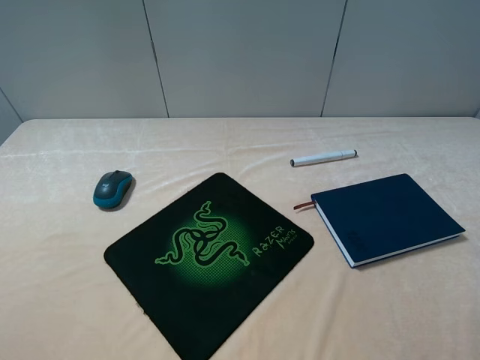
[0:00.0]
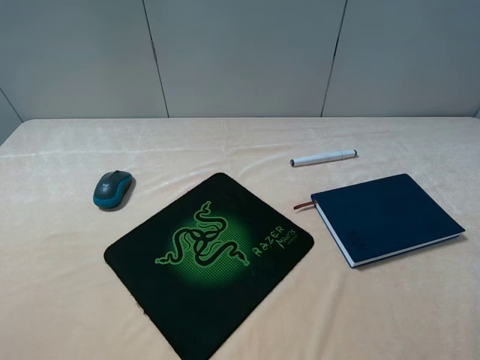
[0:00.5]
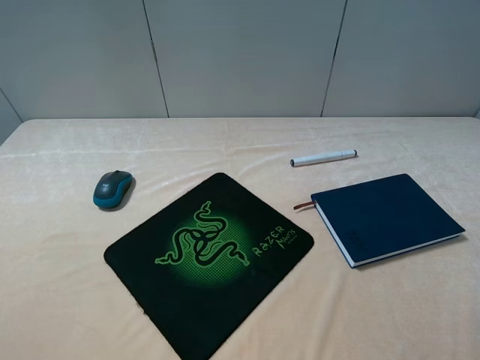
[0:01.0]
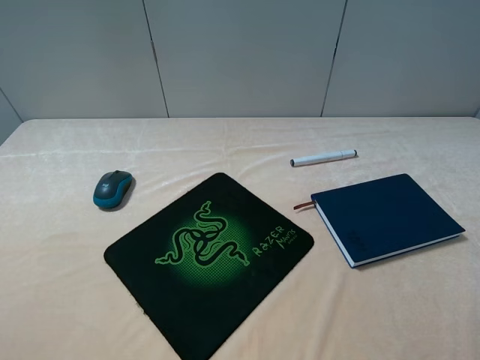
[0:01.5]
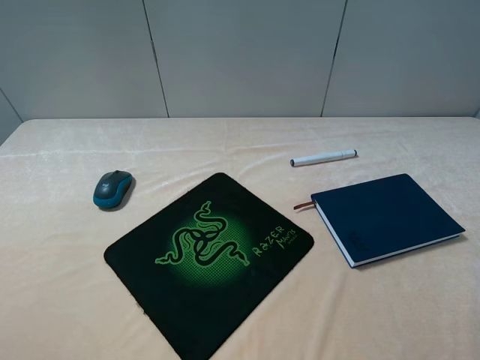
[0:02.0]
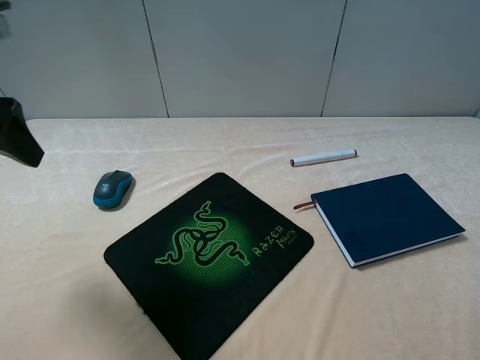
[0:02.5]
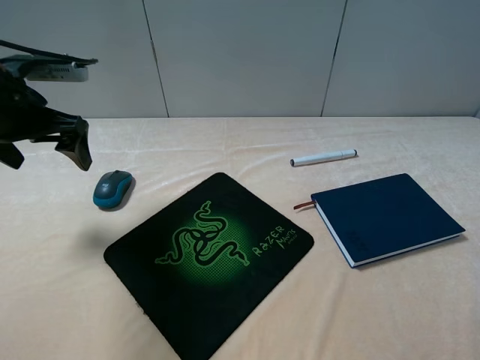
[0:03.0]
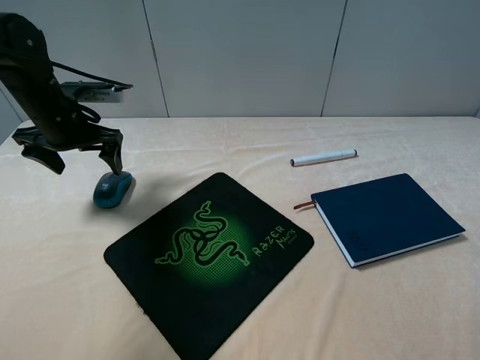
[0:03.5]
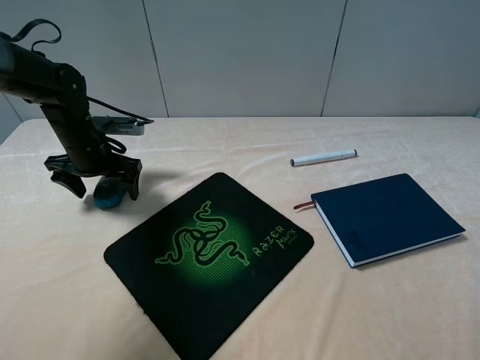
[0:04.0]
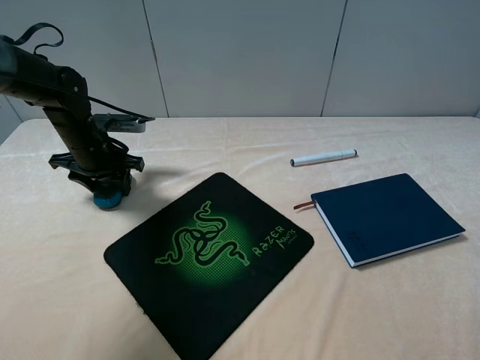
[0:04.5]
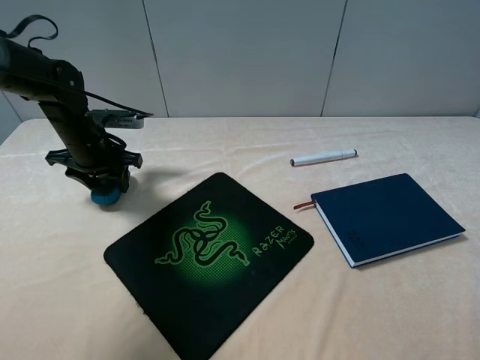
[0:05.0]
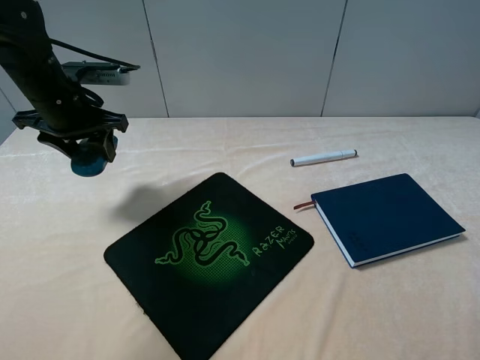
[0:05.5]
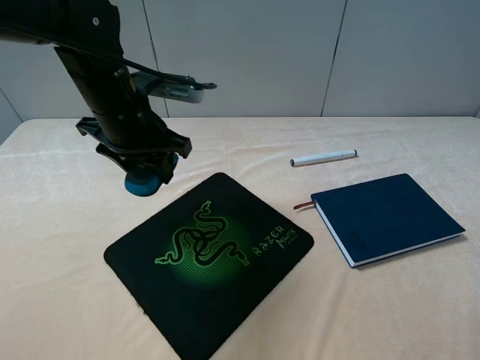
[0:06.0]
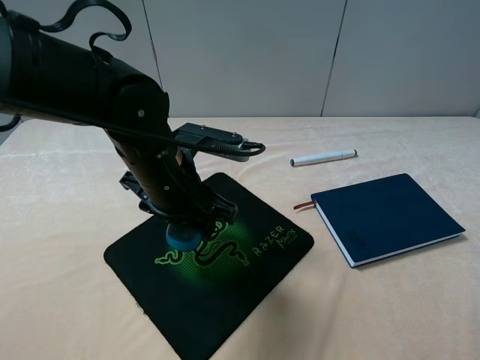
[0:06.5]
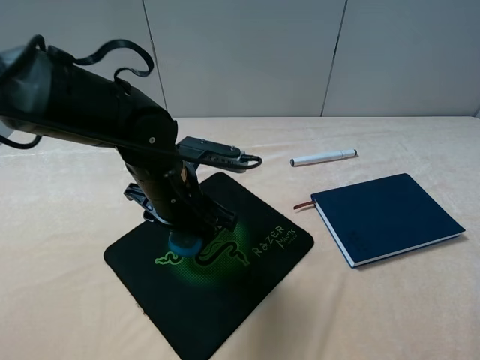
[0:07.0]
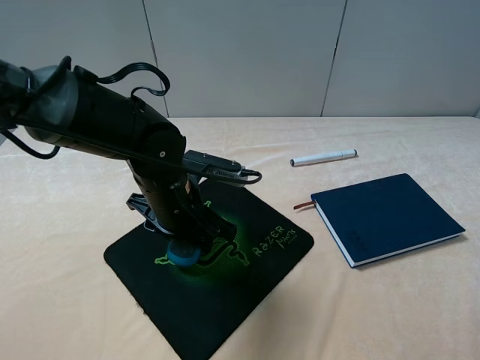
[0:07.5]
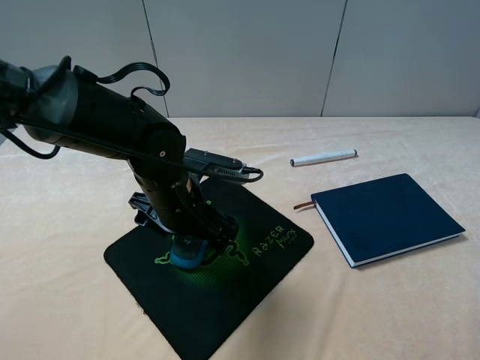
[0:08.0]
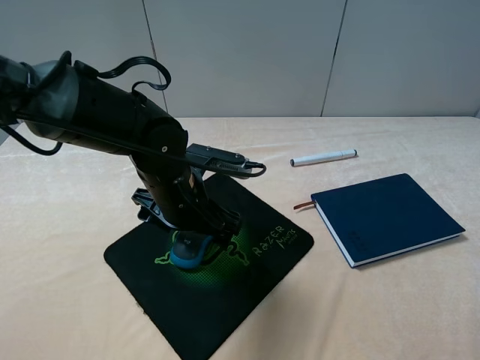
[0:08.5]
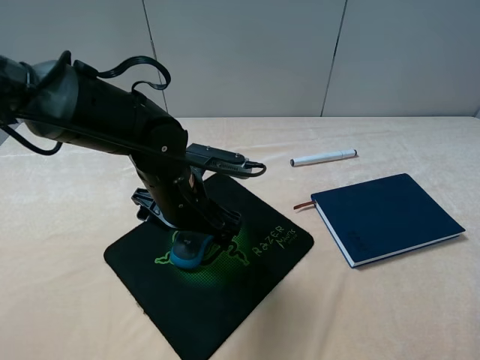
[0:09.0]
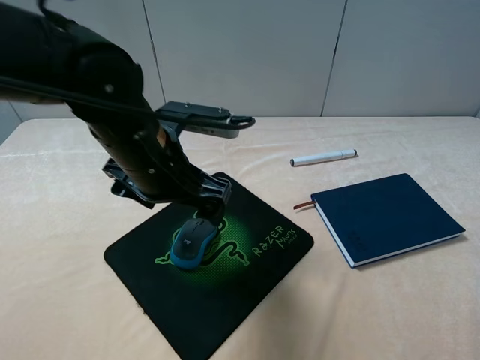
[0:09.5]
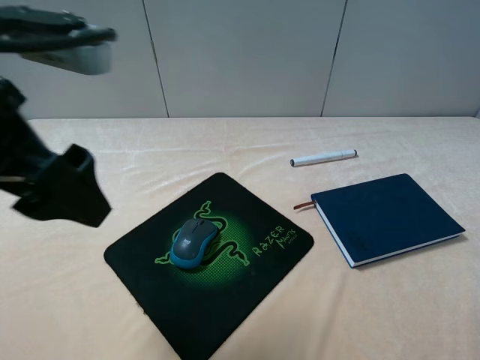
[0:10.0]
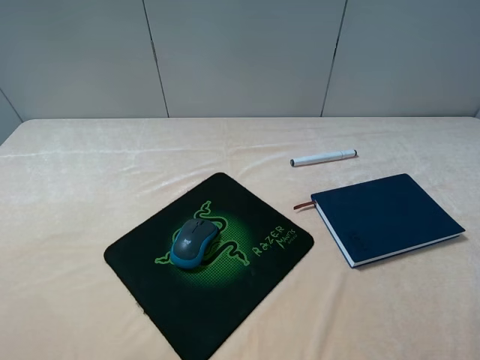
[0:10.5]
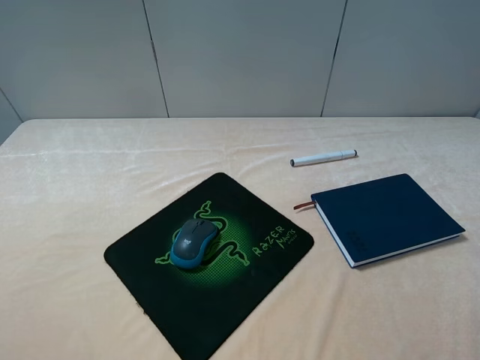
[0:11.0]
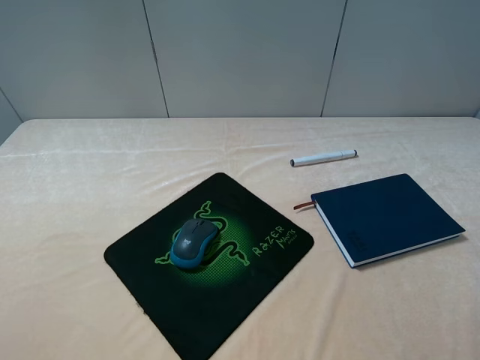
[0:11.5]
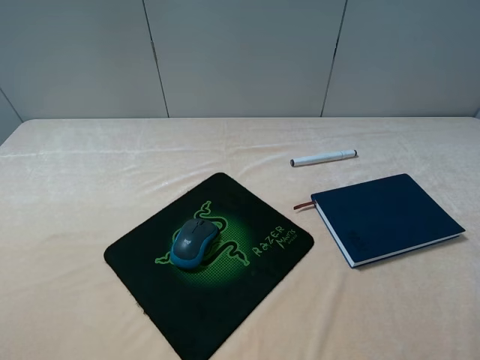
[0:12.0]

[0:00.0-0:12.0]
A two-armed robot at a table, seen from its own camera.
Step, 0:00.0 to 0:04.5: Grasp the mouse with the left gripper.
Step, 0:05.0 to 0:08.0: Place the mouse on the mouse pad with the left gripper.
0:02.0 to 0:04.0: The left gripper travels forward and downward by roughly 40 cm.
0:04.0 to 0:06.0: The left gripper shifts some 20 cm to the right, upward and backward, and closes.
0:06.0 to 0:08.0: The left gripper moves downward, backward and to the right, some 10 cm, and opens its fingers.
0:08.0 to 0:10.0: The left gripper goes approximately 25 cm upward, to the left and backward.
0:10.0 to 0:12.0: The left gripper shifts roughly 20 cm backward, to the left and downward.

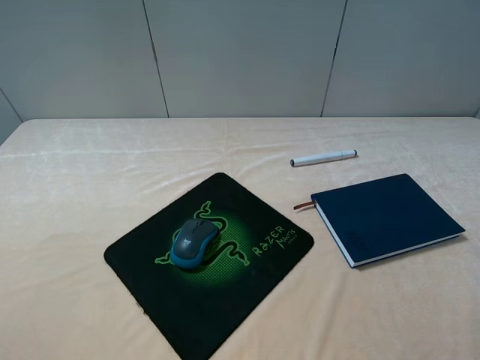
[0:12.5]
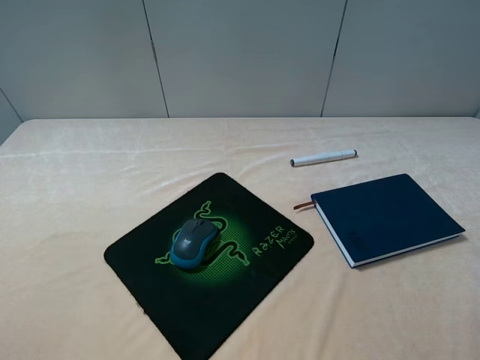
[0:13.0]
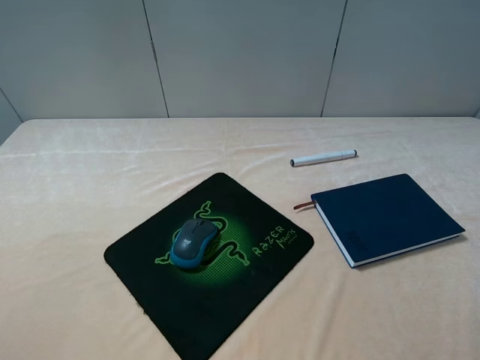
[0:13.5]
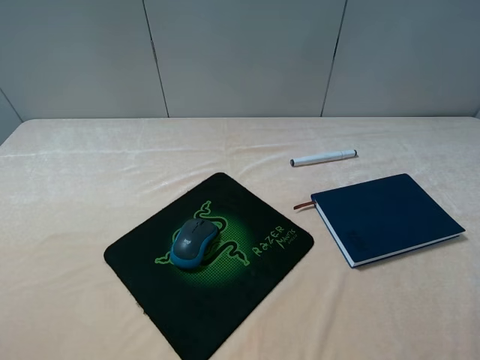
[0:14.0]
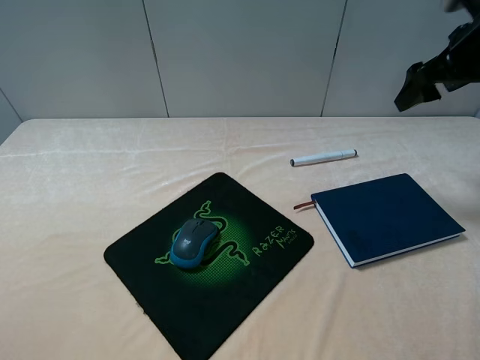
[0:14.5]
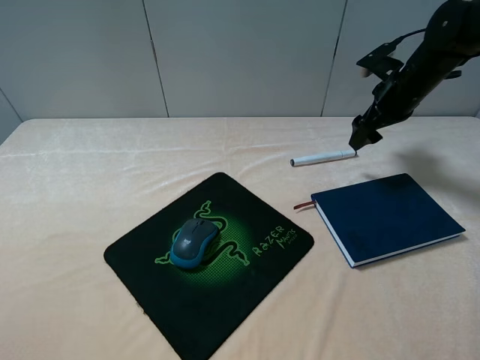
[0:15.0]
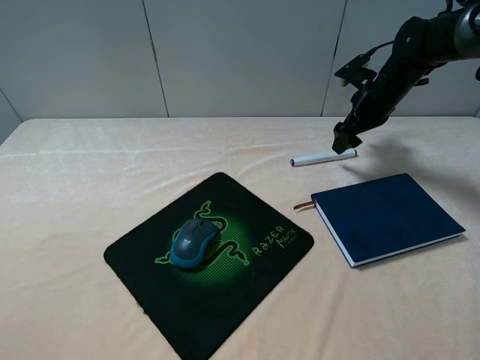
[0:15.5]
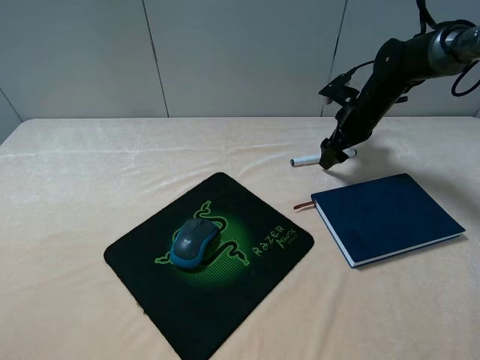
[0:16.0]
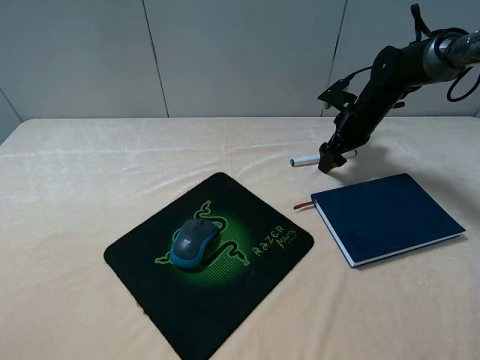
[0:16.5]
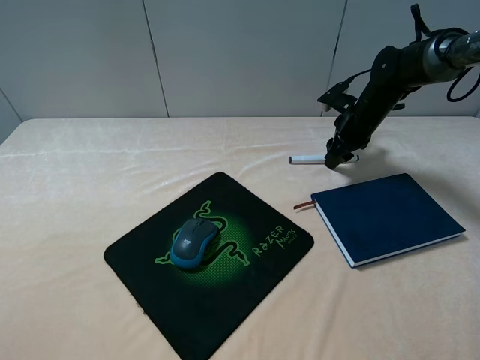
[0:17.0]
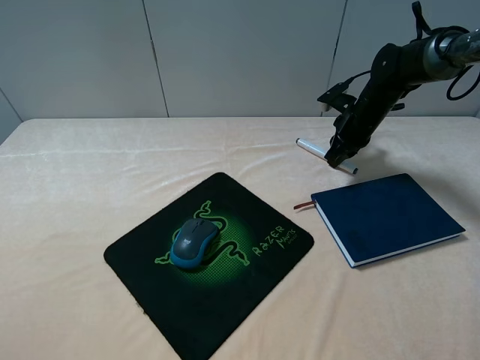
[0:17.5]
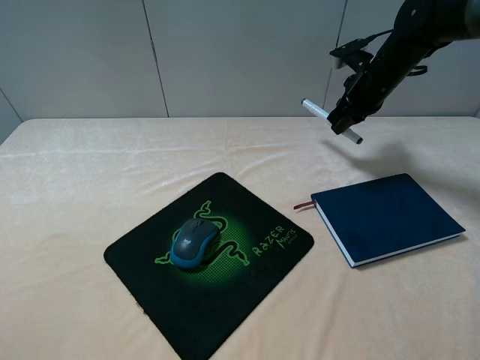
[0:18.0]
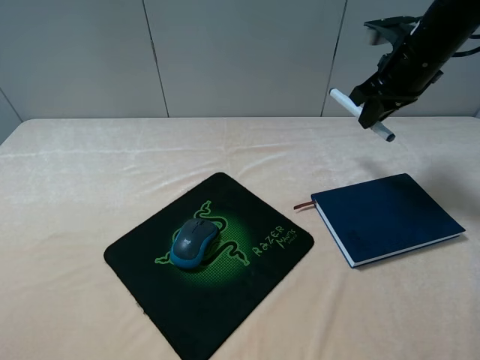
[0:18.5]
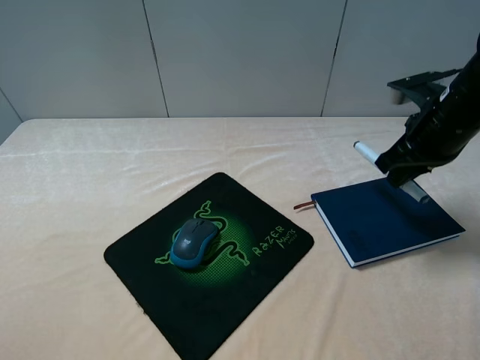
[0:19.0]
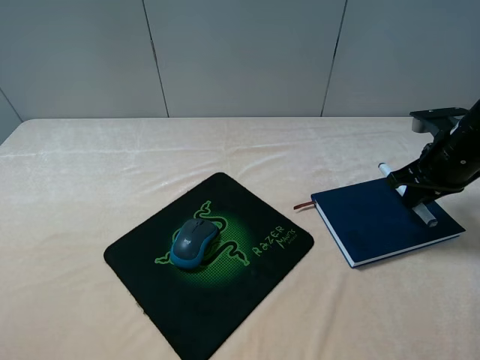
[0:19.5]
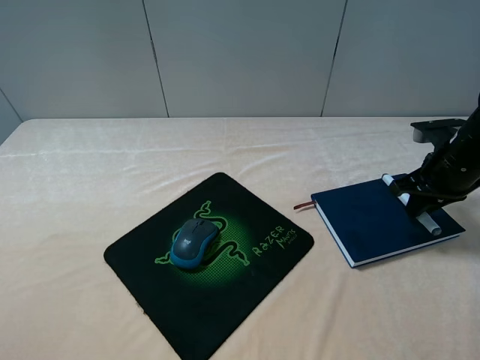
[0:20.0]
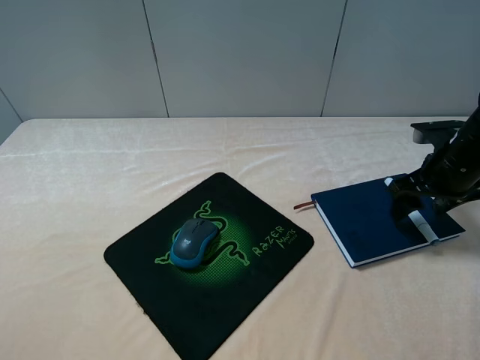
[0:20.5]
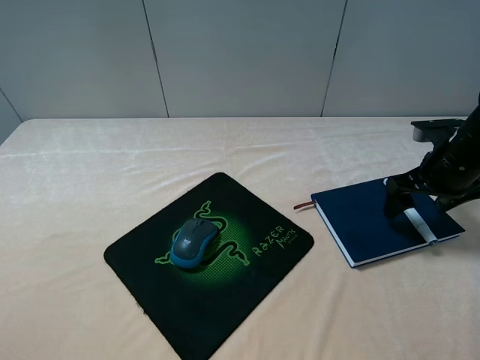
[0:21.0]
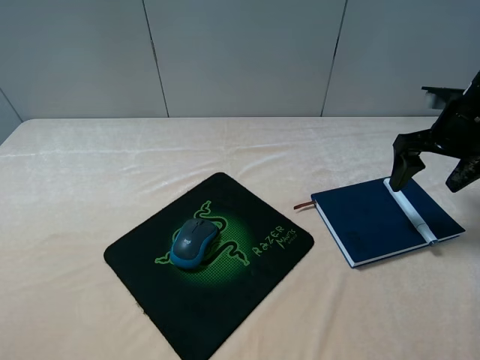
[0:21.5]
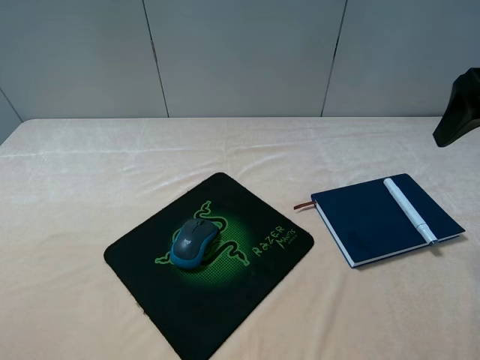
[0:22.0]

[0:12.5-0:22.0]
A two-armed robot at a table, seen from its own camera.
Step, 0:12.5 to 0:17.0: Grasp the marker with the right gripper.
Step, 0:17.5 to 0:20.5: Place the marker on the notebook with the right gripper.
0:12.5 to 0:14.5: The right gripper heads forward, covering approximately 35 cm.
0:14.5 to 0:16.5: The right gripper heads downward, forward and to the left, covering some 20 cm.
0:16.5 to 0:18.0: The right gripper heads upward, covering approximately 10 cm, and closes up.
0:18.0 to 0:20.0: The right gripper travels backward and to the right by roughly 15 cm.
0:20.0 to 0:22.0: The right gripper is displaced upward by roughly 20 cm, and opens.

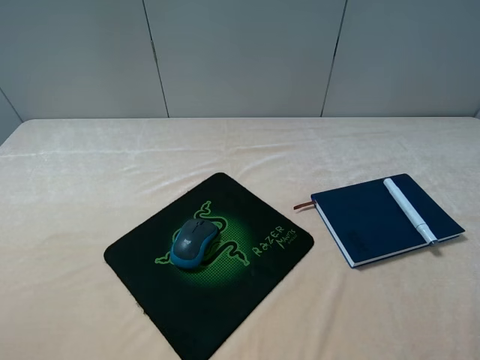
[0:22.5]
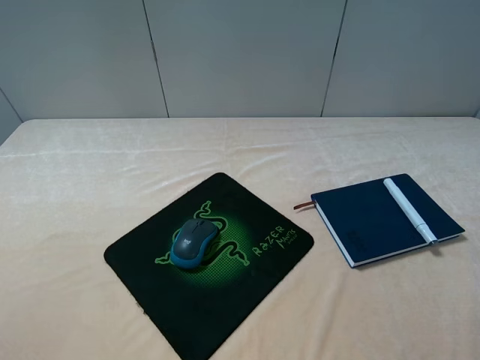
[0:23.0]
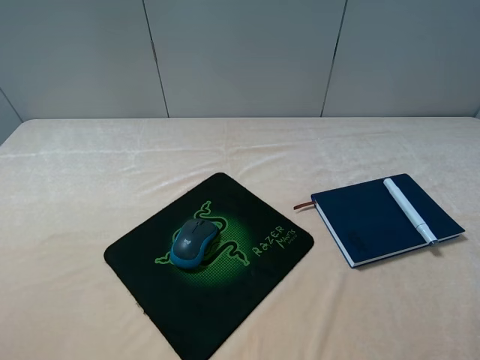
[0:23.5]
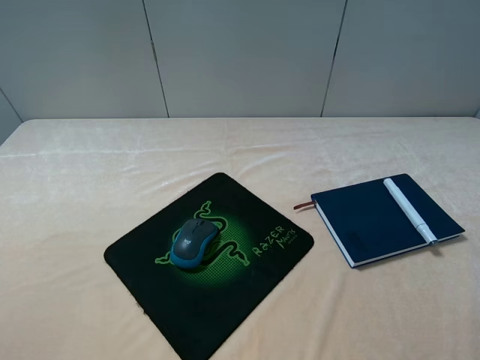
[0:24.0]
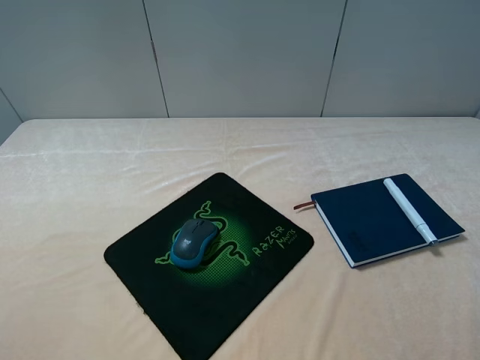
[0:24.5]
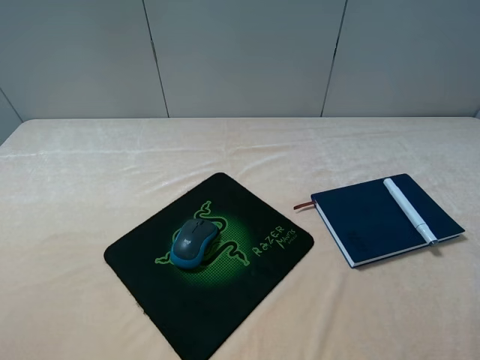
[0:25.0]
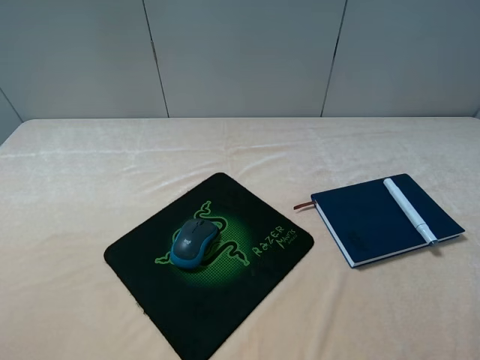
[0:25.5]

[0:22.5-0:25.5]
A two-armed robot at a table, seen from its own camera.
0:24.0 to 0:25.5: The two grippers keep their place.
